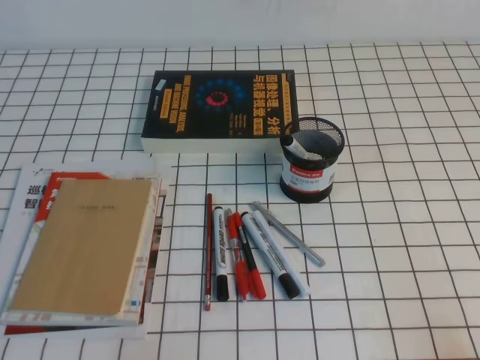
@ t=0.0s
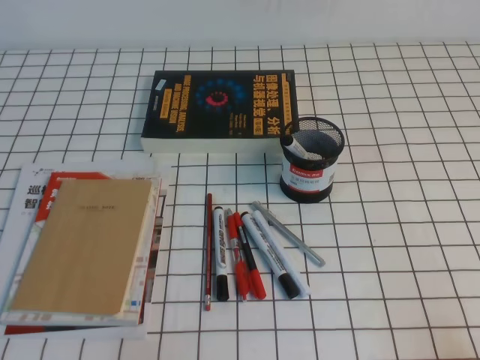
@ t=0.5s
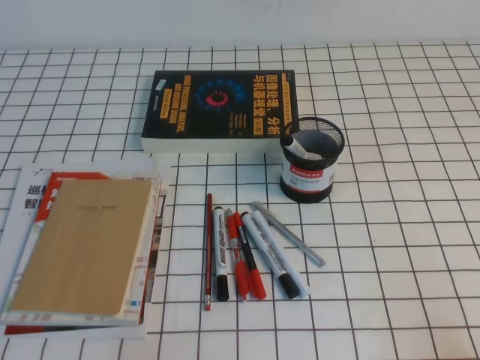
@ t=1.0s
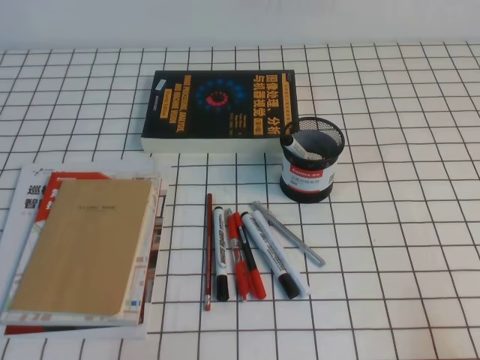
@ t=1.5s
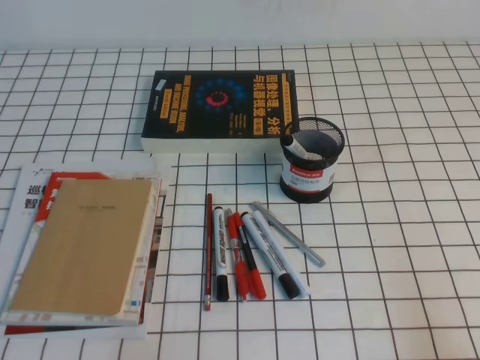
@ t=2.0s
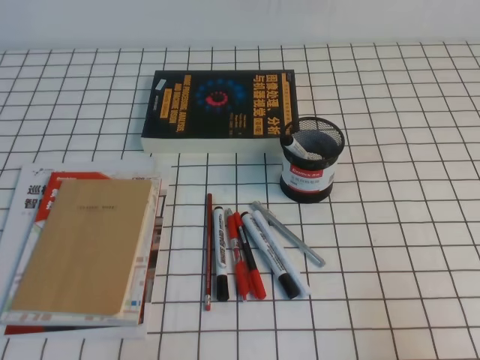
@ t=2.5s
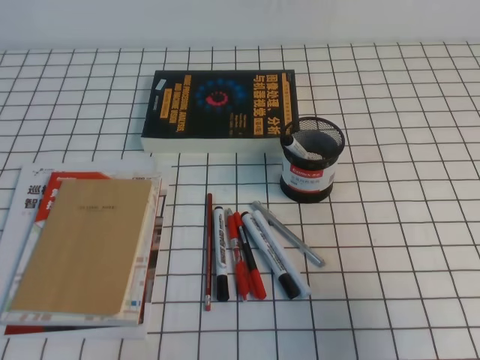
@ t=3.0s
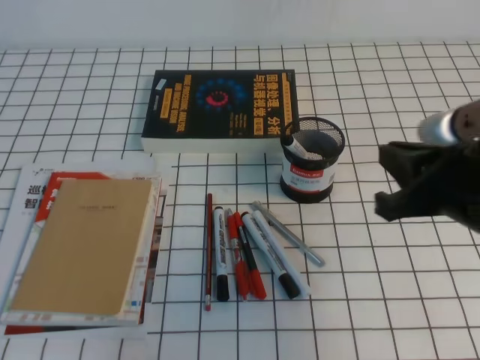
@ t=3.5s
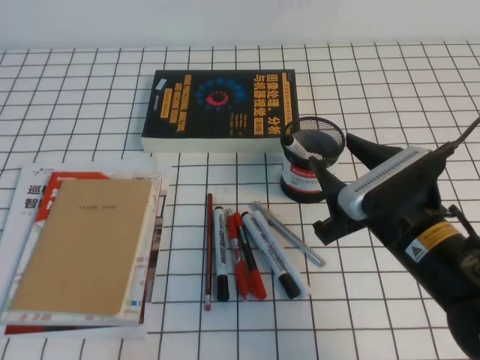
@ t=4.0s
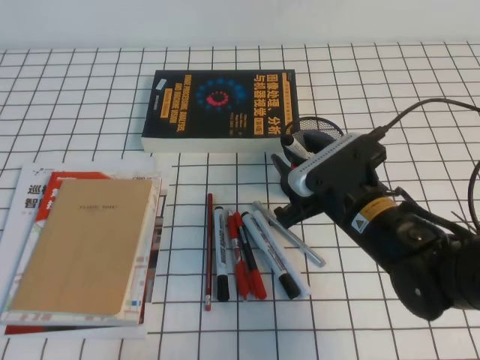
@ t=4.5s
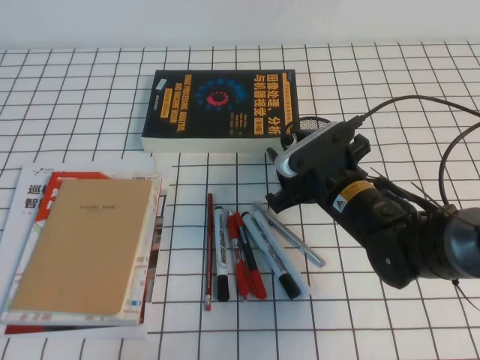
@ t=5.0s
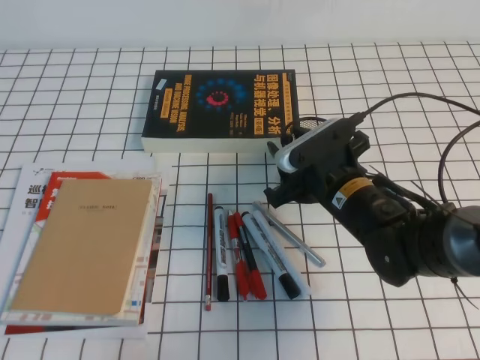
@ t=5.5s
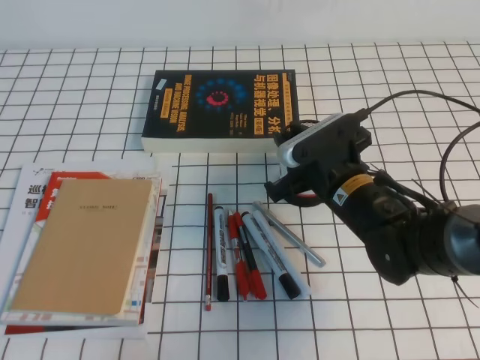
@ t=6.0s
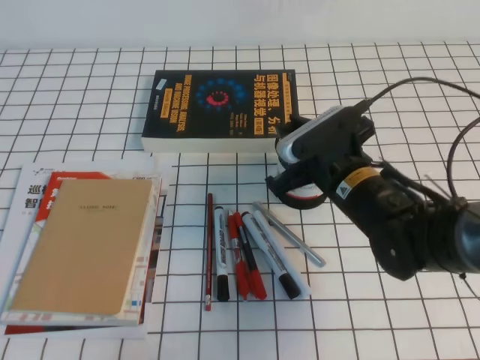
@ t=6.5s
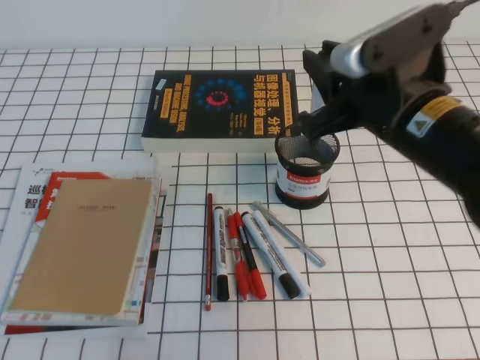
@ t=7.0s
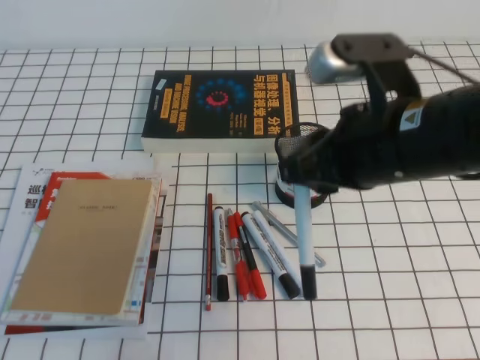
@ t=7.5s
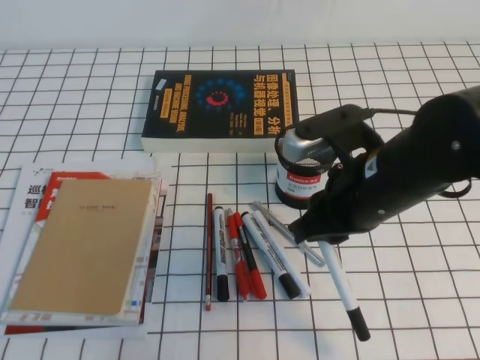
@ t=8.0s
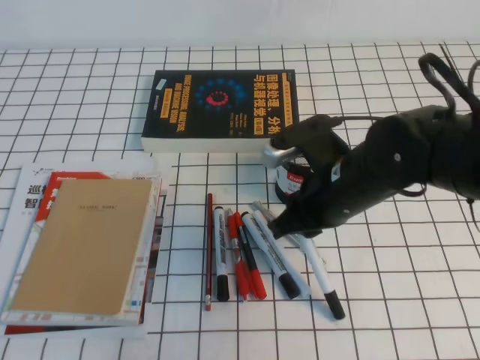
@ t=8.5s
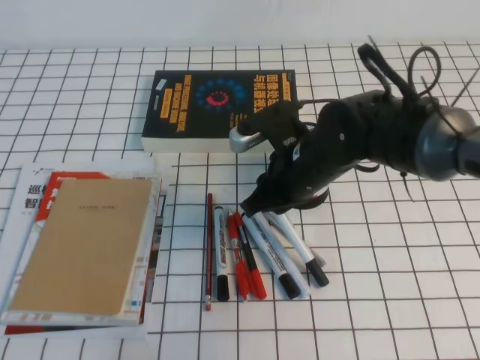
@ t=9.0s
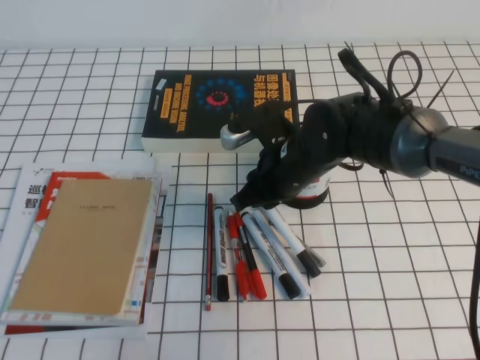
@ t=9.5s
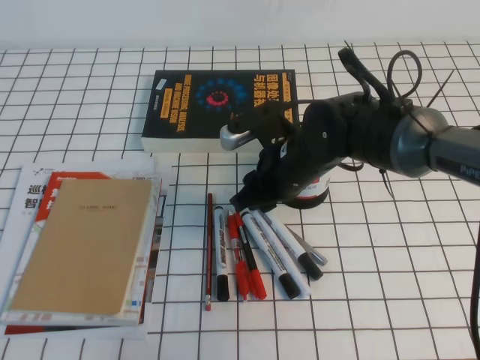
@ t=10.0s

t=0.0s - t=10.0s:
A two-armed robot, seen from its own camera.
t=2.0s - t=4.0s: The right gripper moves forward and to the left, approximately 25 cm, and opens its fingers.
t=4.0s - t=6.0s: The right gripper is displaced forward and to the left by approximately 10 cm, and closes up.
t=6.0s - t=8.0s: The right gripper travels upward and backward by about 10 cm.
t=8.0s - t=10.0s: The right gripper shifts roughly 15 cm forward, downward and to the left.

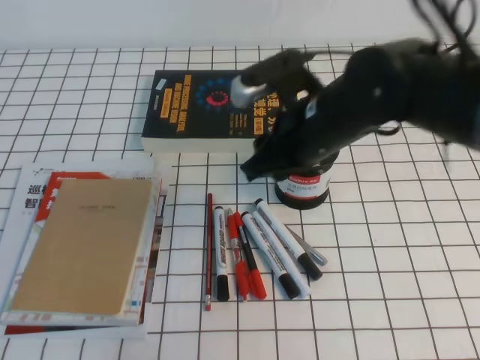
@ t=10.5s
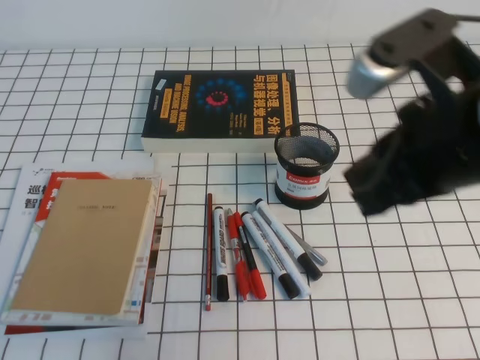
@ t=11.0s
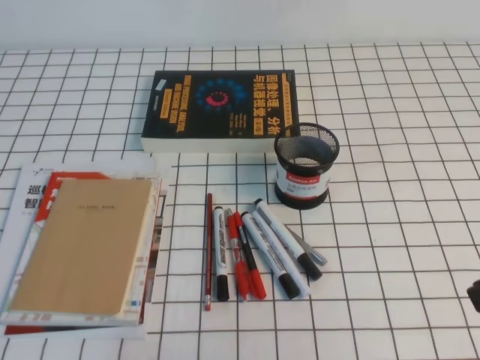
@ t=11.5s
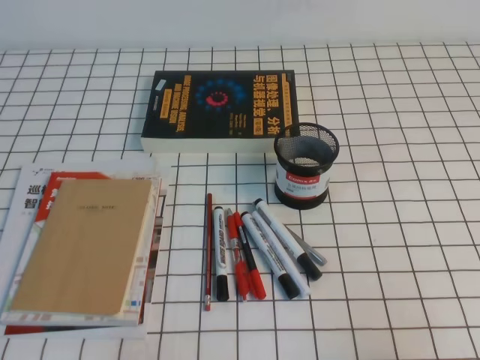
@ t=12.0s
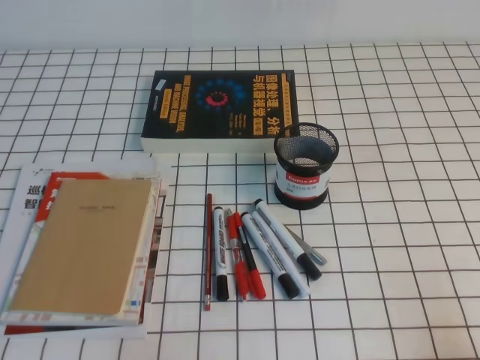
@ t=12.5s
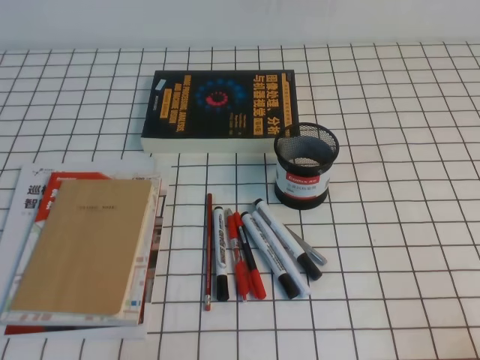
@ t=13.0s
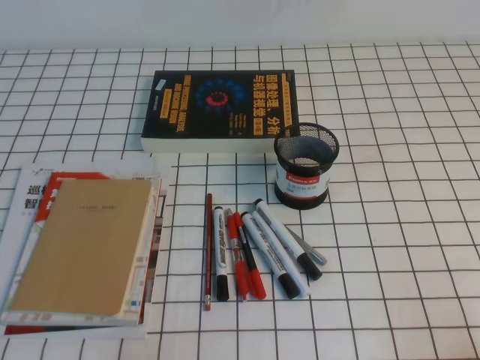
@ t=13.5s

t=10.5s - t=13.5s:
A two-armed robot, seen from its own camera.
Step, t=10.5s - t=13.5s: Pick up the pen from the pen holder.
t=10.5s - t=12.0s: The right gripper goes some 30 cm backward and to the right, and closes.
t=12.0s - t=13.5s: The right gripper heads downward, covering some 10 cm.
